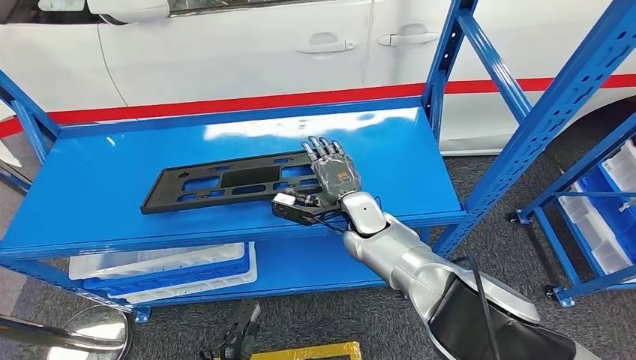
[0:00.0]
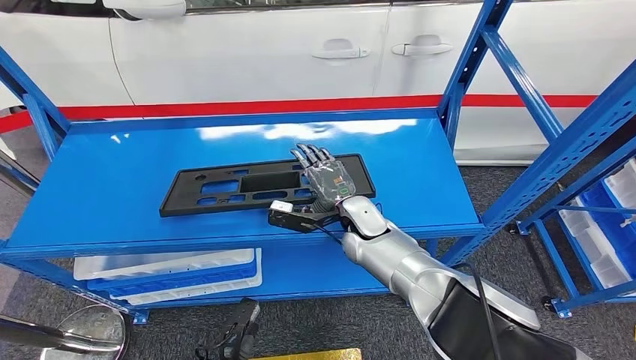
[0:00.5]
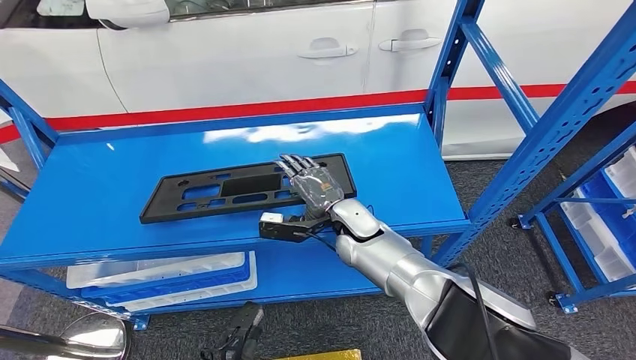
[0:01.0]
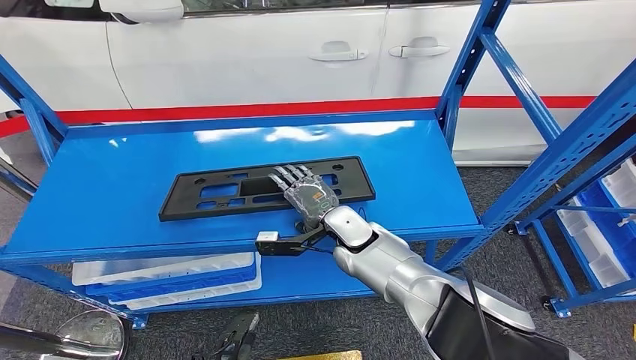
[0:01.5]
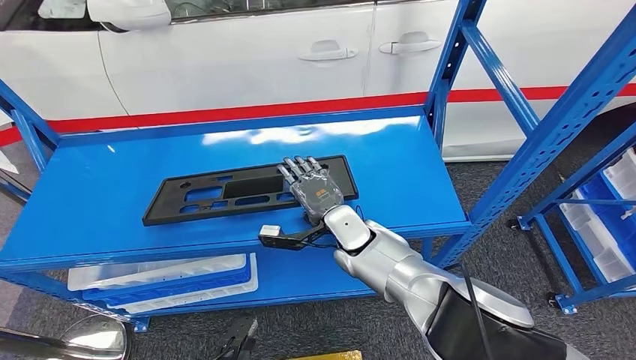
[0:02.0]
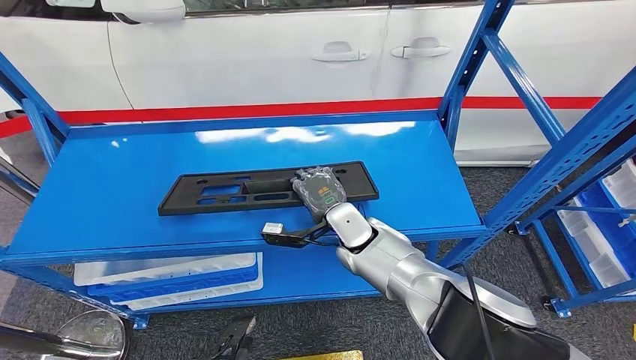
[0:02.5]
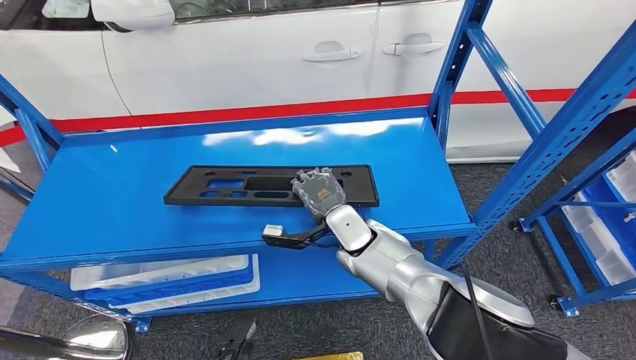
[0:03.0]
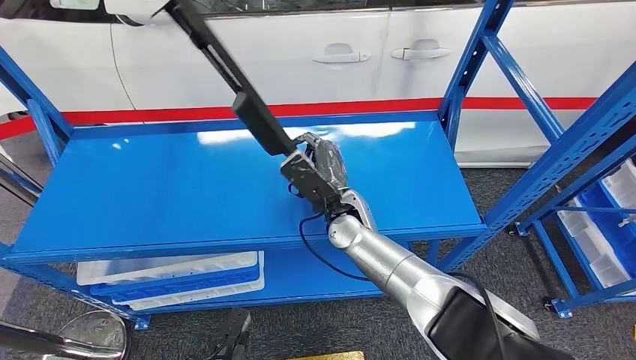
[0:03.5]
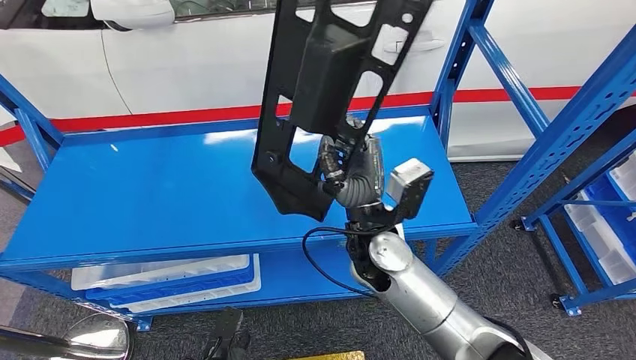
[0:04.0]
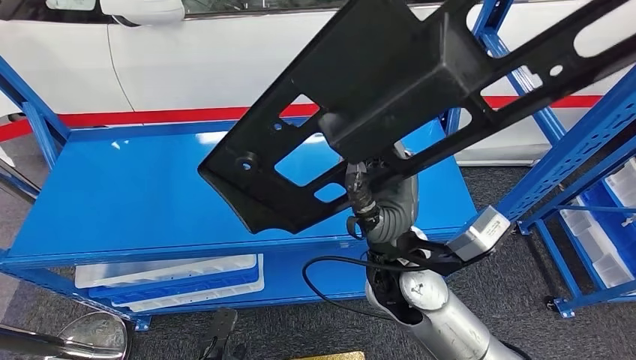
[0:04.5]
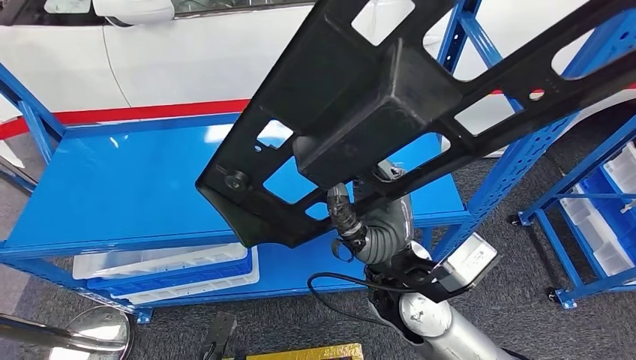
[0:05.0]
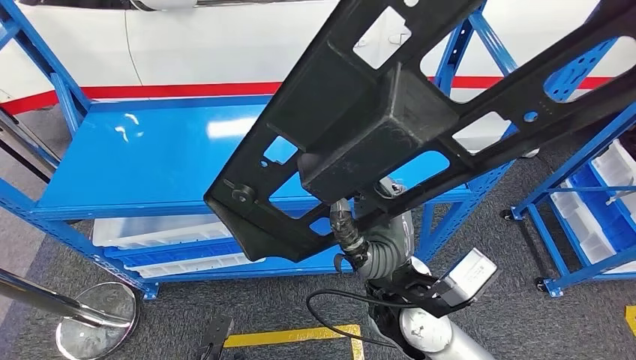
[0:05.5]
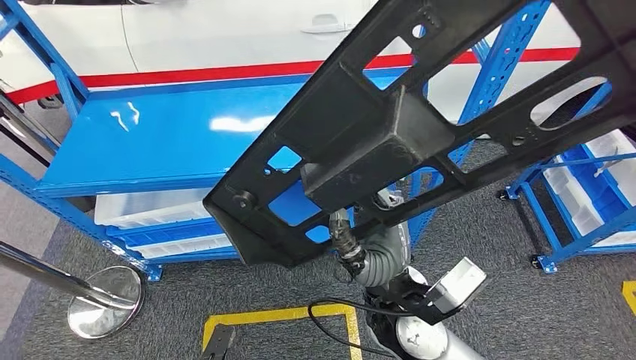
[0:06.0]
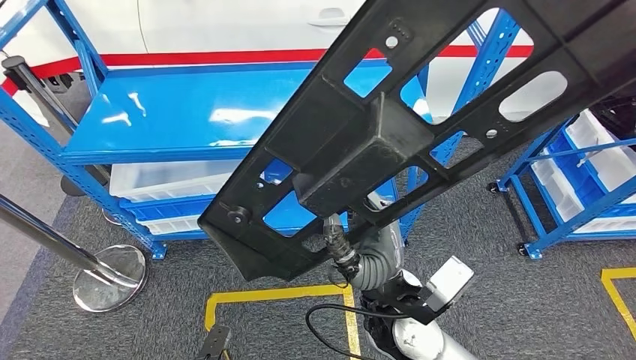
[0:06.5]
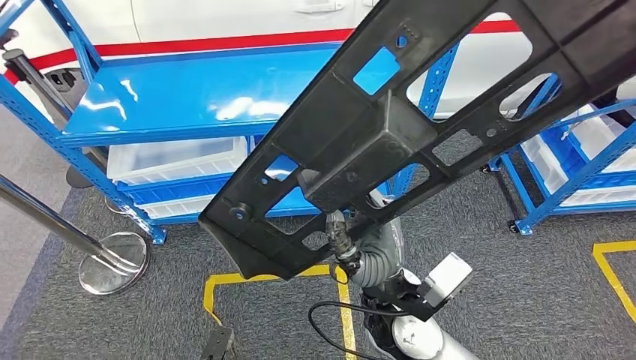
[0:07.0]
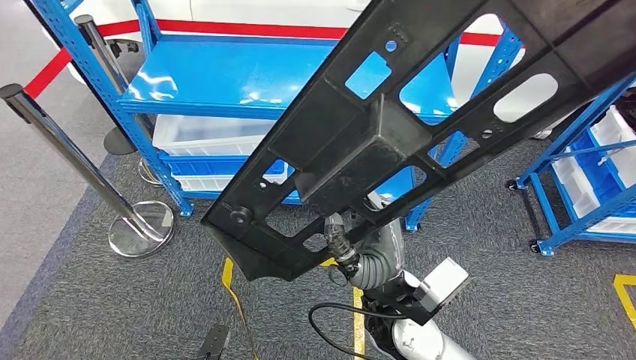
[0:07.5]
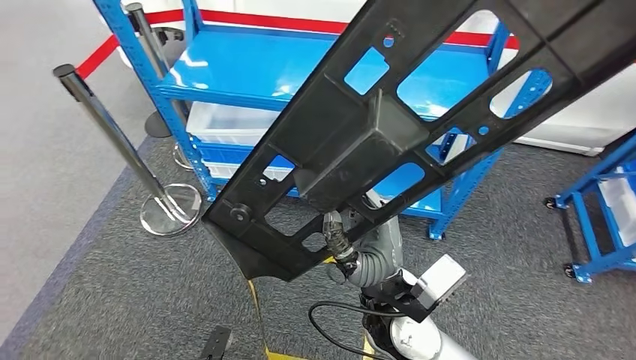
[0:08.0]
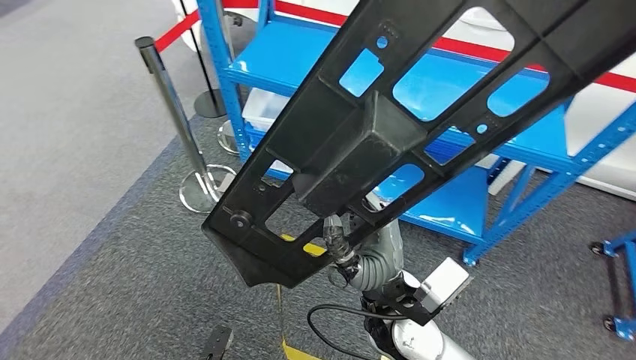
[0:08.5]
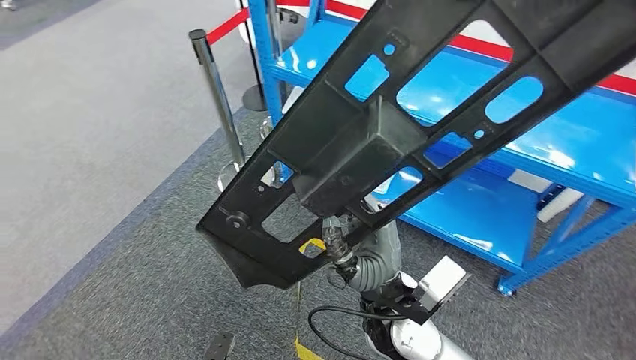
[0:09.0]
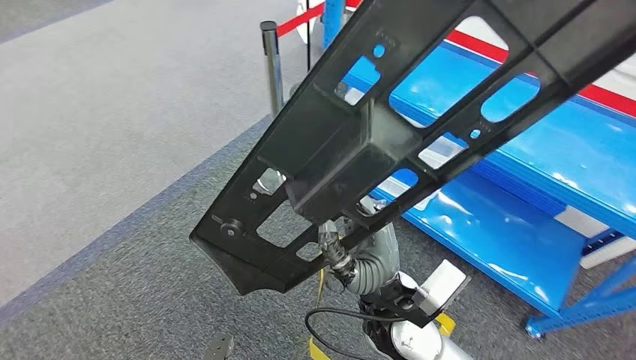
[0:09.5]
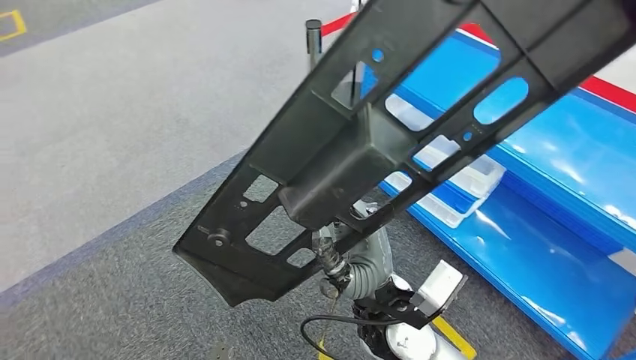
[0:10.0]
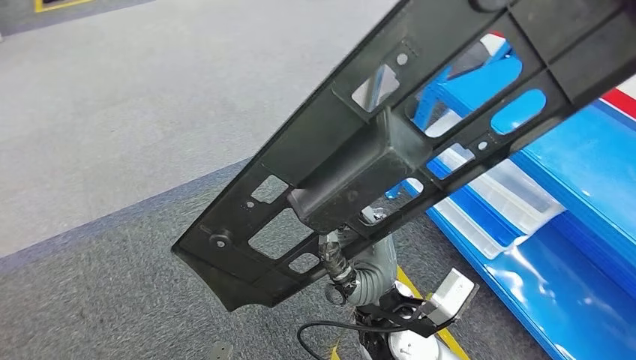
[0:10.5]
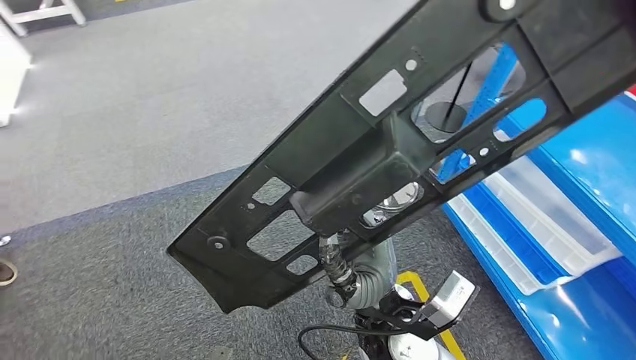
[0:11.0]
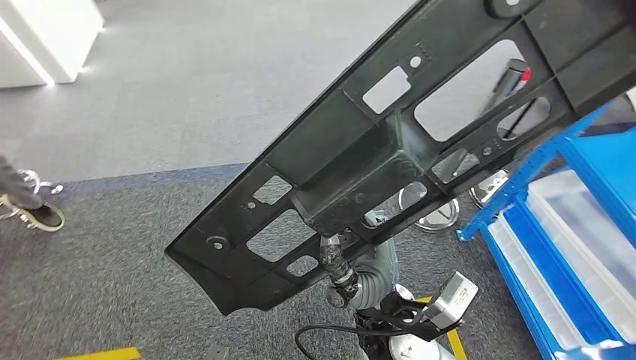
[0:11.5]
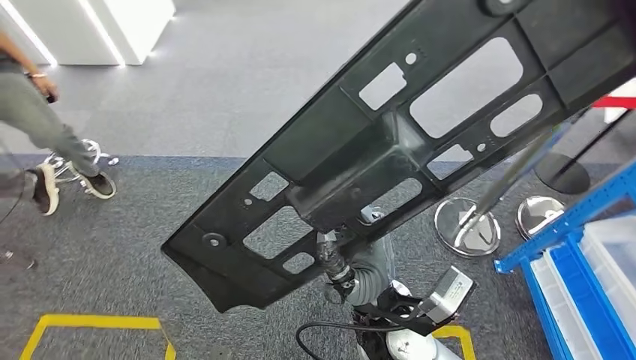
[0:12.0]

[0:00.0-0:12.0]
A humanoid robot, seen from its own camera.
Step, 0:00.0 to 0:06.0: Pick up the large material from the shelf.

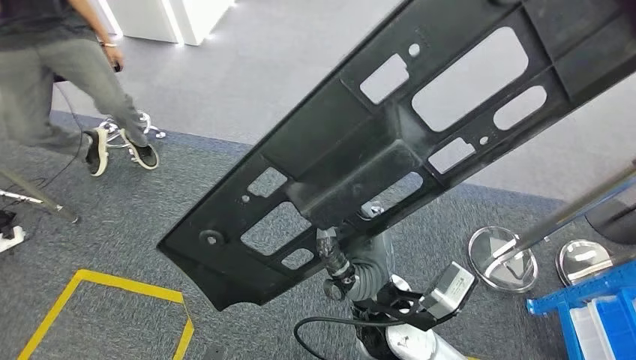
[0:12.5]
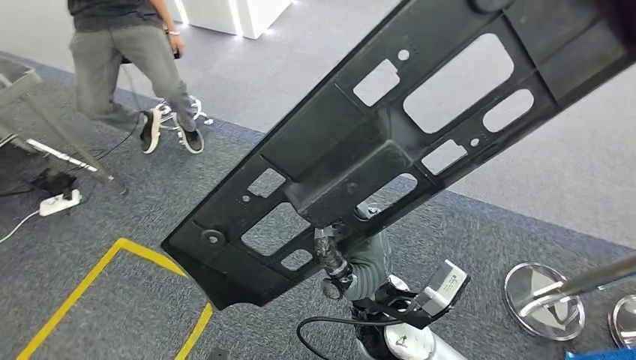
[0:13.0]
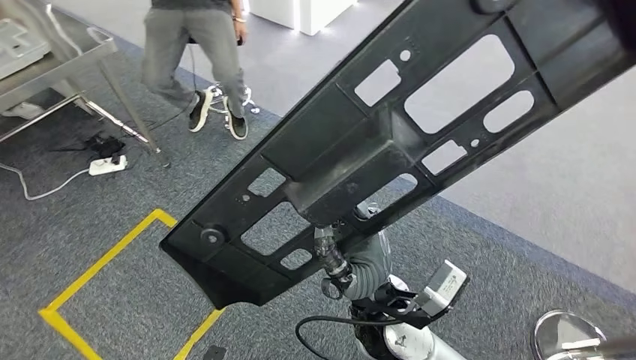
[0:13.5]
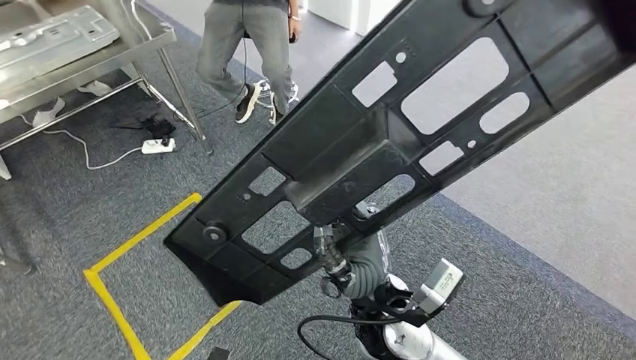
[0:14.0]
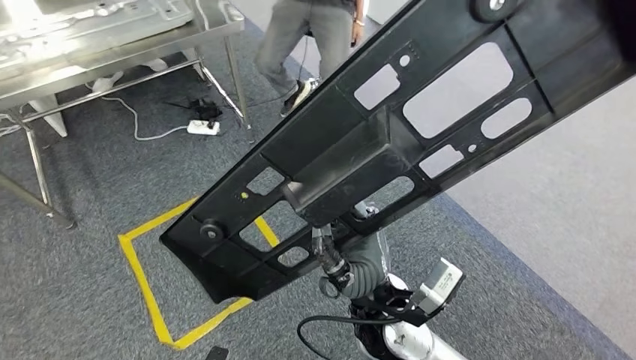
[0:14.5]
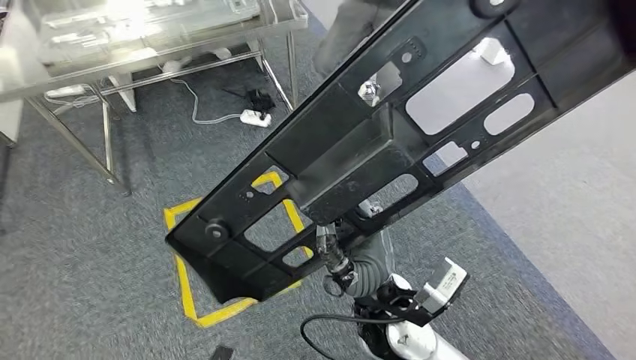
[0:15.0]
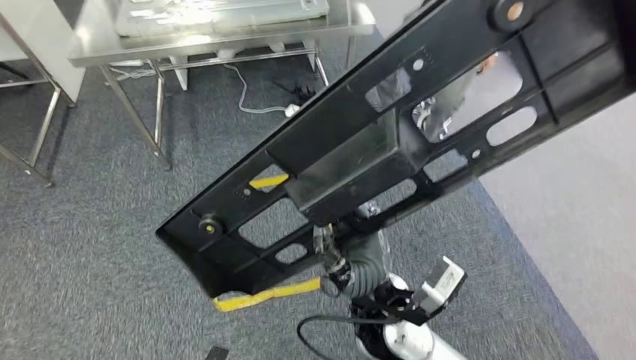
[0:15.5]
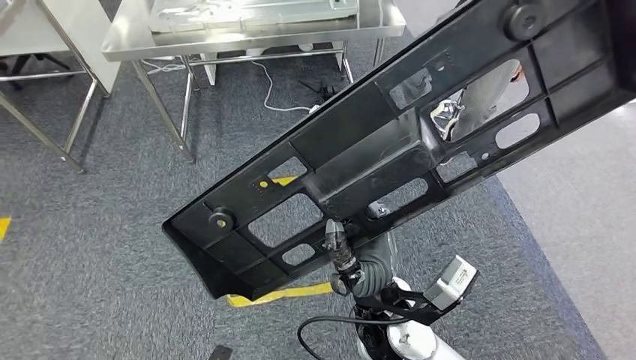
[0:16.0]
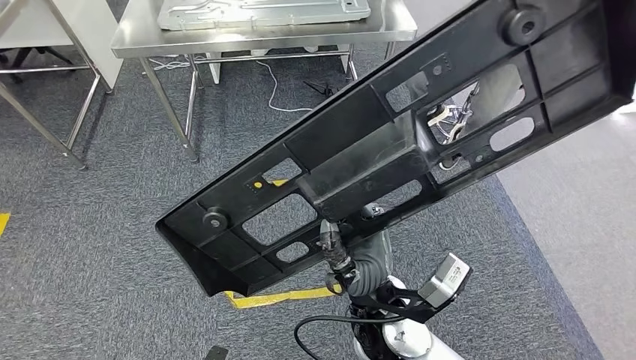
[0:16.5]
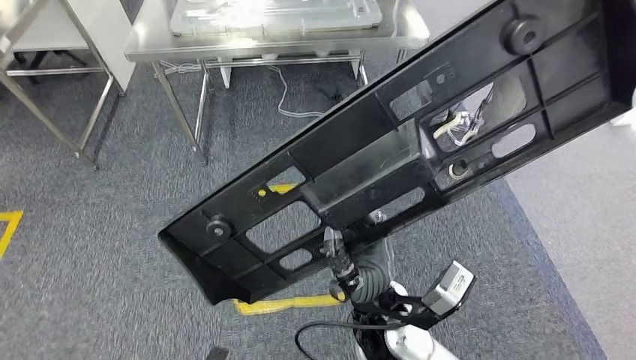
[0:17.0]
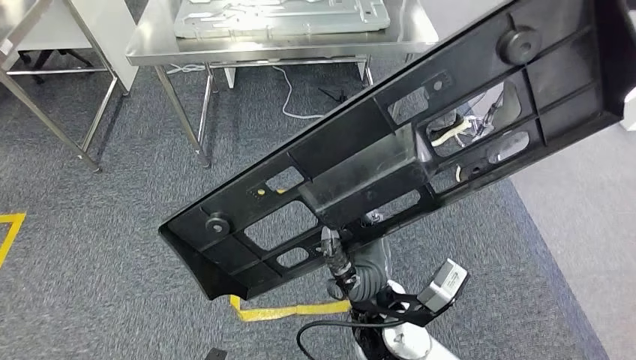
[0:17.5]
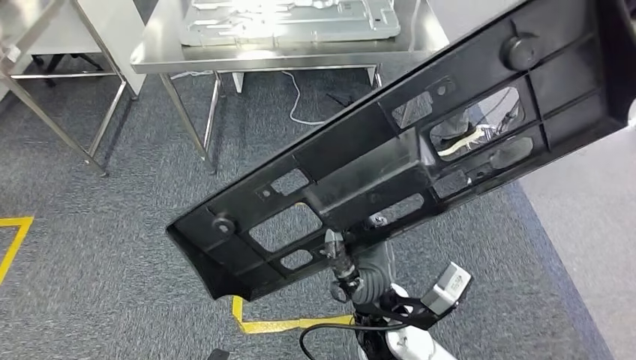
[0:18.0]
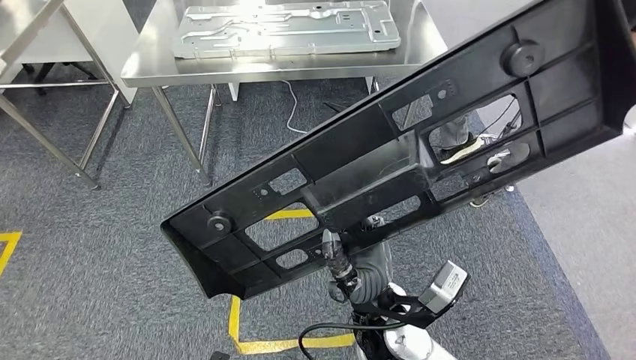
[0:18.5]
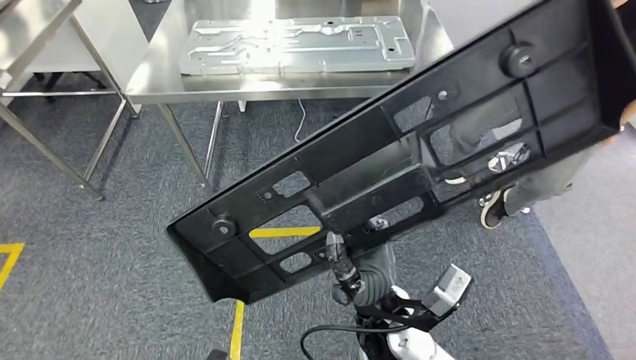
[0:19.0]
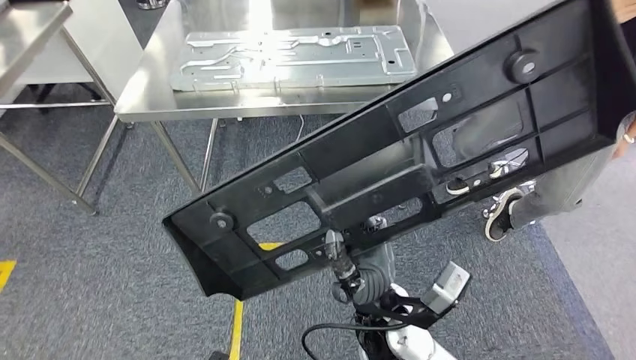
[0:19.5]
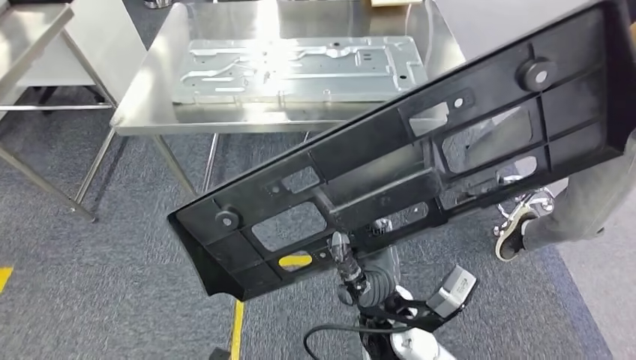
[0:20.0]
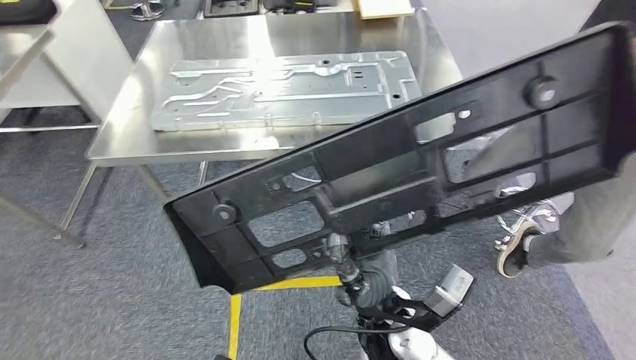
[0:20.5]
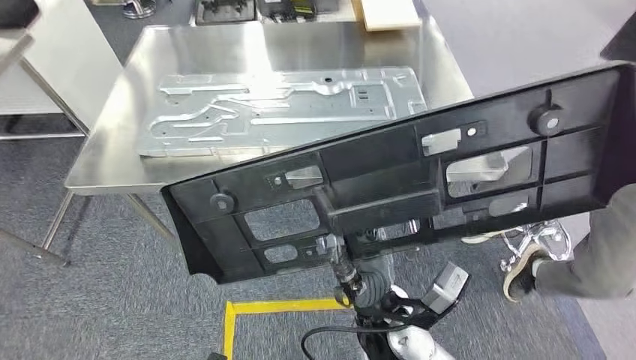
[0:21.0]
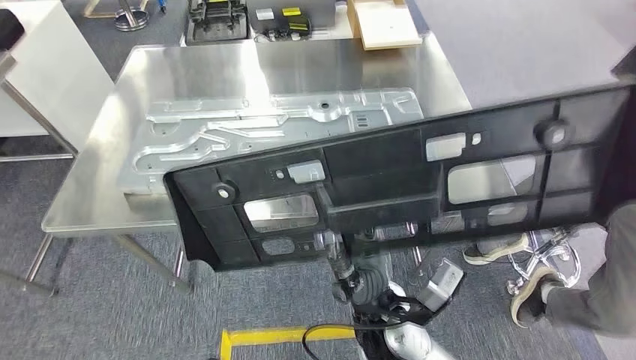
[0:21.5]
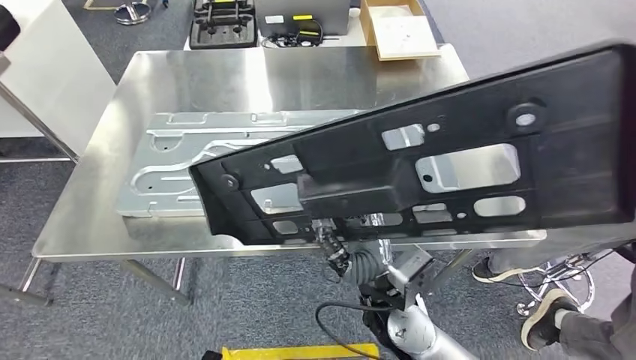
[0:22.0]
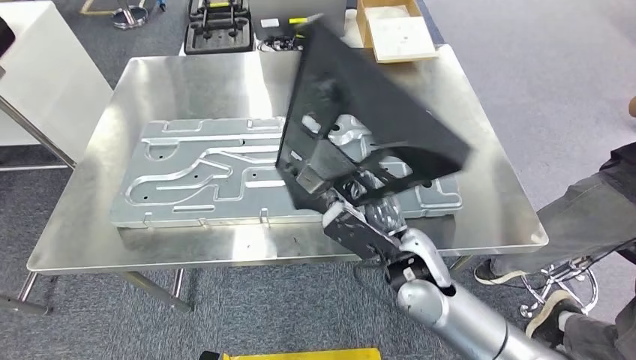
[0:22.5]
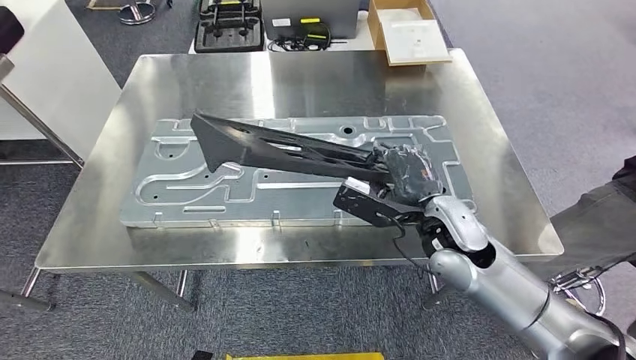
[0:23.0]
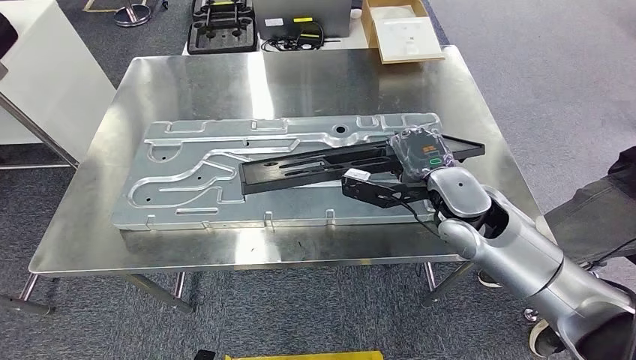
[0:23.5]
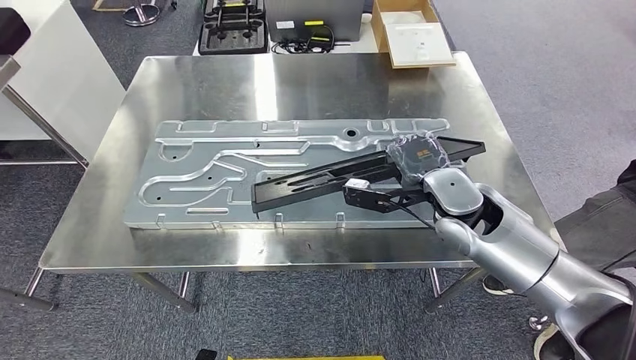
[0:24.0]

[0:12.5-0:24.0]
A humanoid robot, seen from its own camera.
Step, 0:12.5 to 0:21.5: Move the large material to the front of the workbench.
